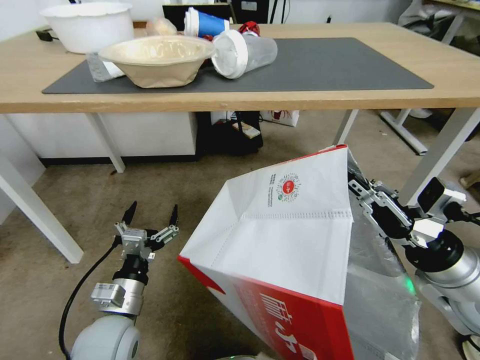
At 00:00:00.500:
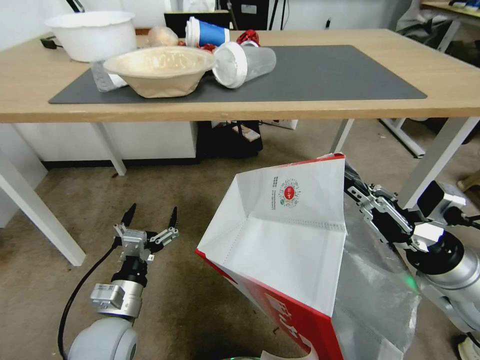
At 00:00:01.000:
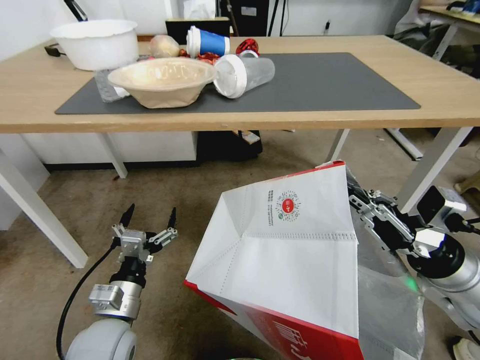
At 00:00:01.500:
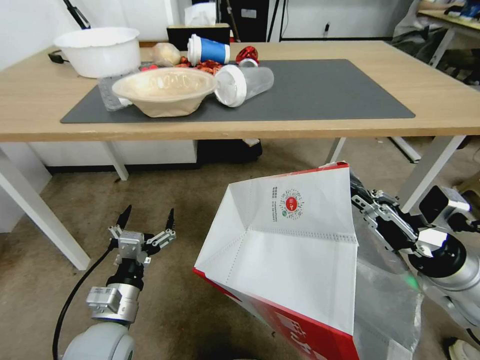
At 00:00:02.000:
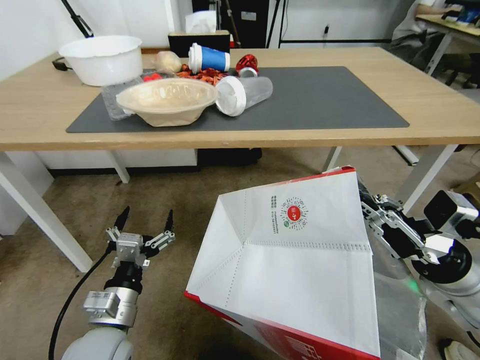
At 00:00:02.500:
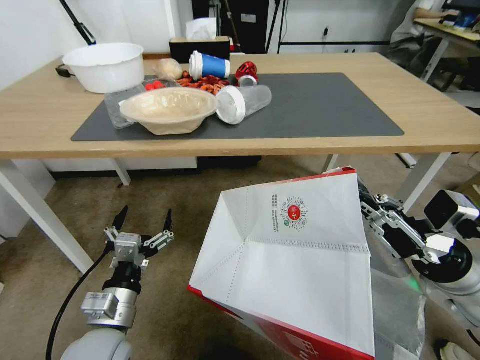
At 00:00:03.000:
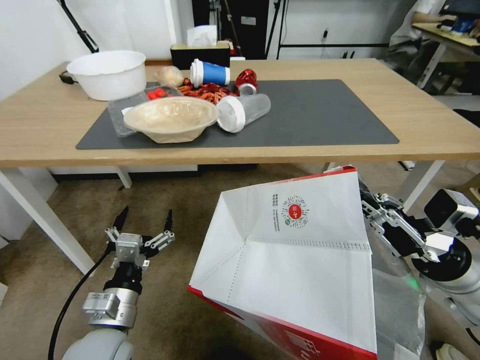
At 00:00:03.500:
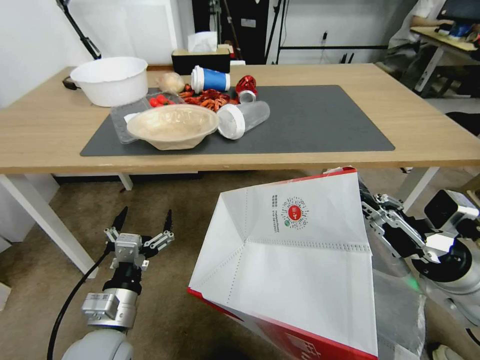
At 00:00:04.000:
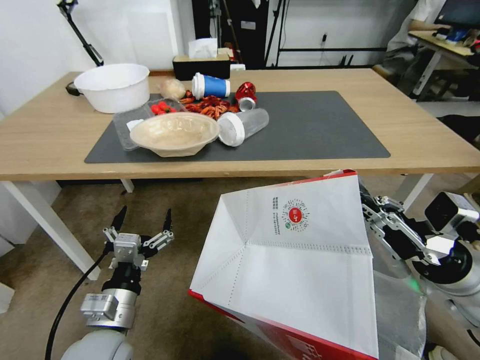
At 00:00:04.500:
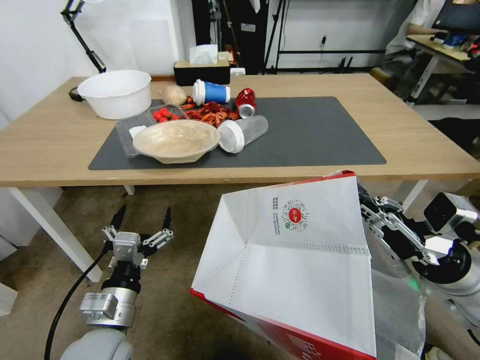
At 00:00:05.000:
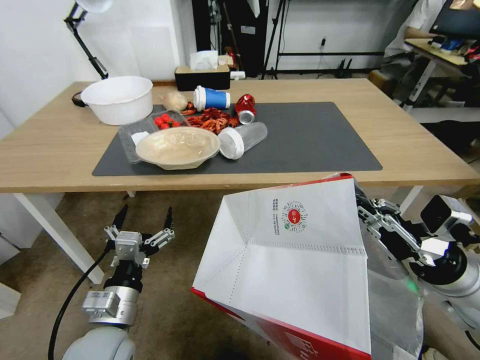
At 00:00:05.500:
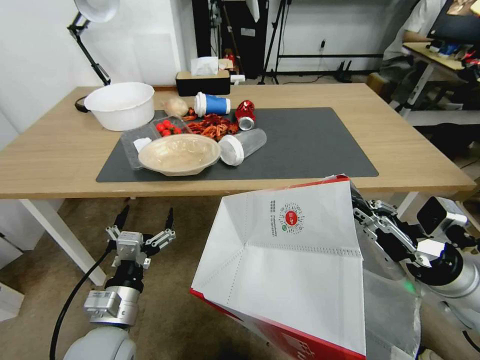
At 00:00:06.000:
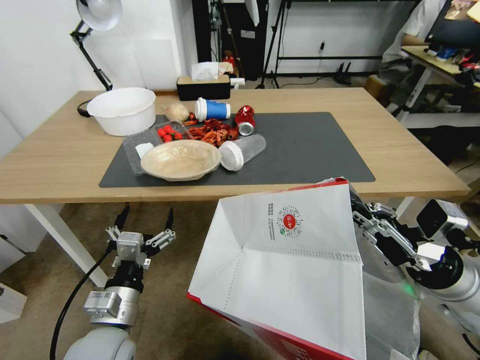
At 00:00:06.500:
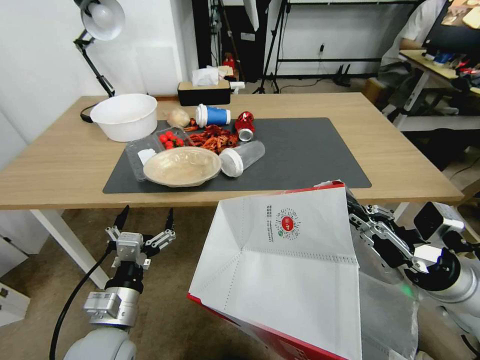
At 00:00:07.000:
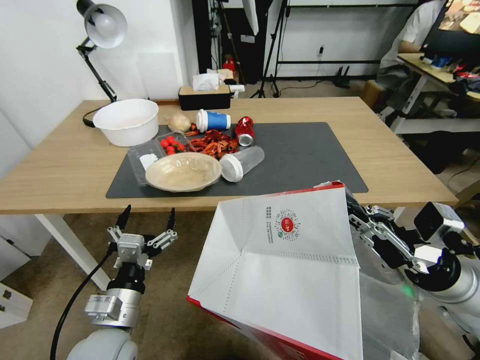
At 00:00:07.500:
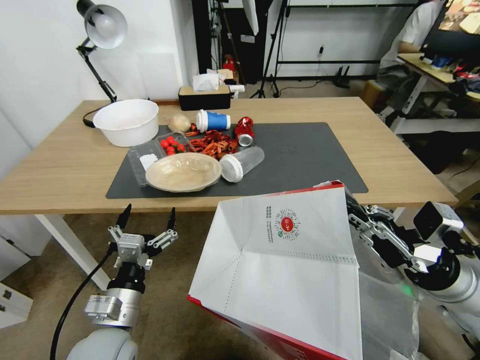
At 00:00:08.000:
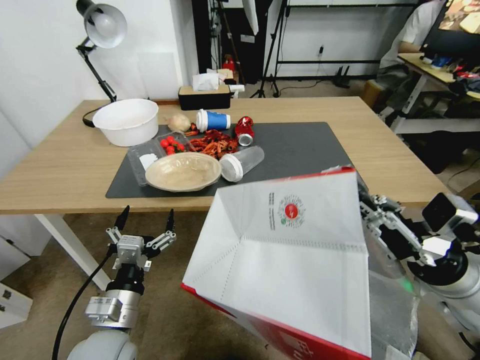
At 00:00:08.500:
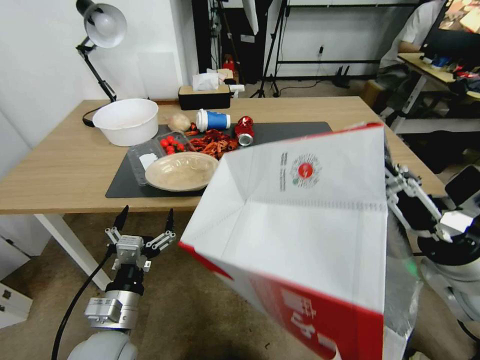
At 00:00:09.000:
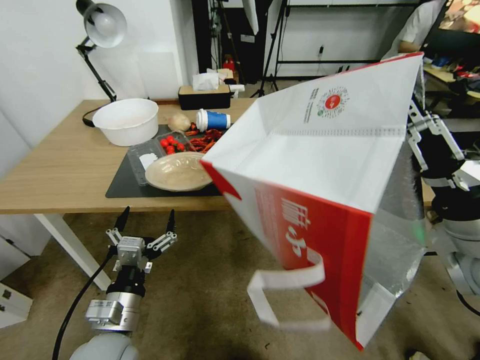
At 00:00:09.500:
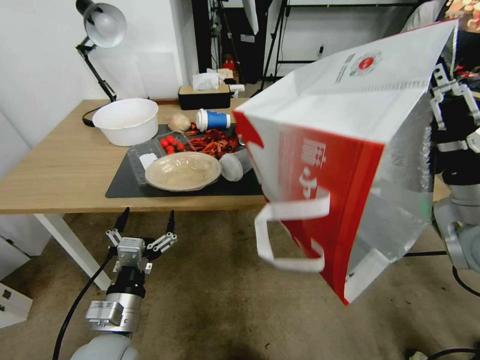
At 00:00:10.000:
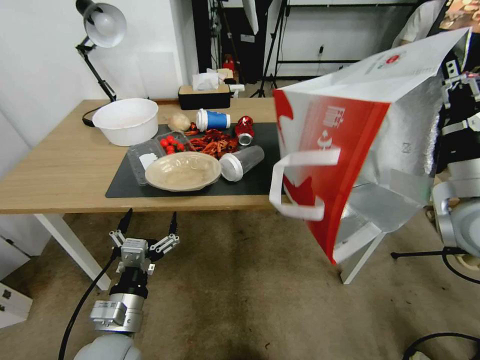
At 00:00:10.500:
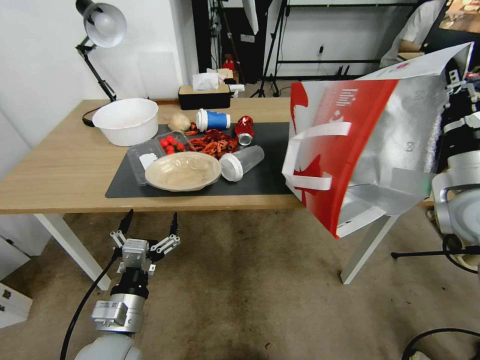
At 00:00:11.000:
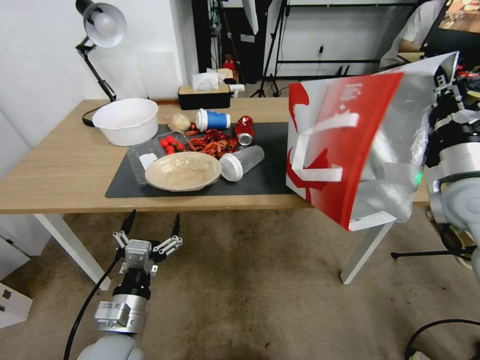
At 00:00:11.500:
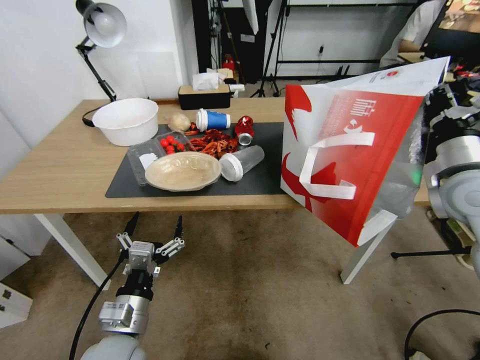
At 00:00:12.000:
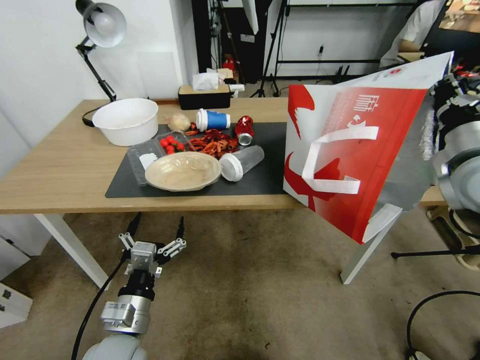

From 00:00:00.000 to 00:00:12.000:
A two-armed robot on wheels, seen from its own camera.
Task of the whole recording: Pick up the food delivery bag from the floor and place it on the table.
From 00:00:08.000 to 00:00:10.000: The right gripper heads upward and forward, covering roughly 10 cm.
From 00:00:10.000 to 00:00:12.000: The right gripper shifts about 5 cm forward.

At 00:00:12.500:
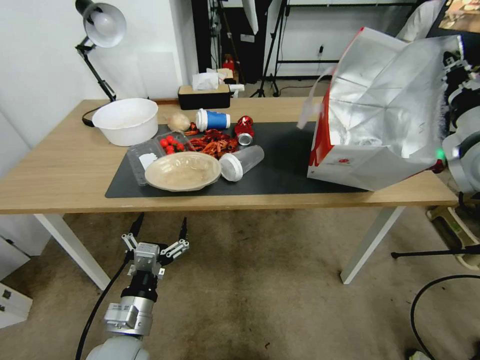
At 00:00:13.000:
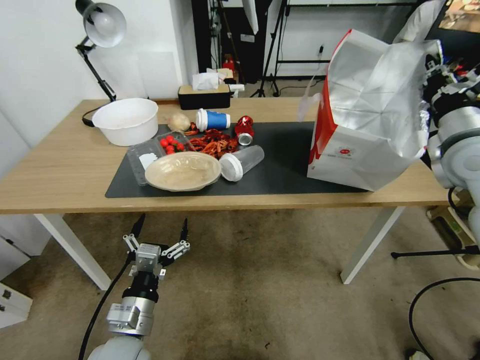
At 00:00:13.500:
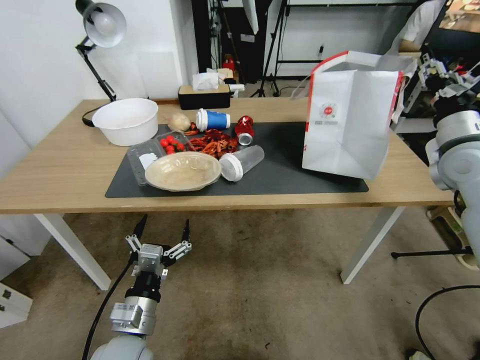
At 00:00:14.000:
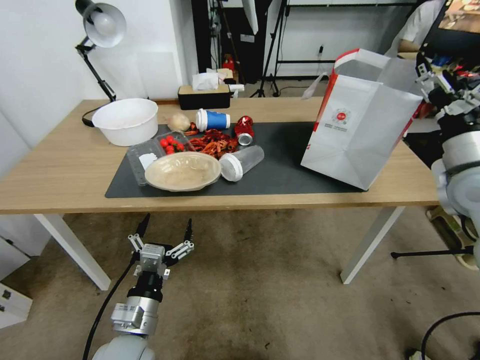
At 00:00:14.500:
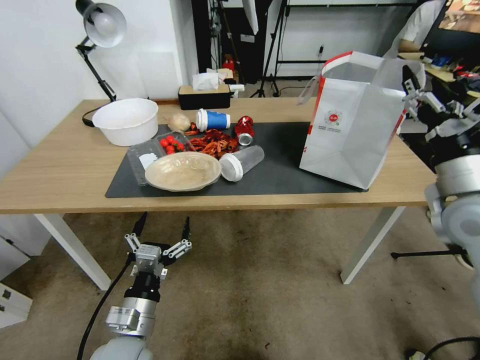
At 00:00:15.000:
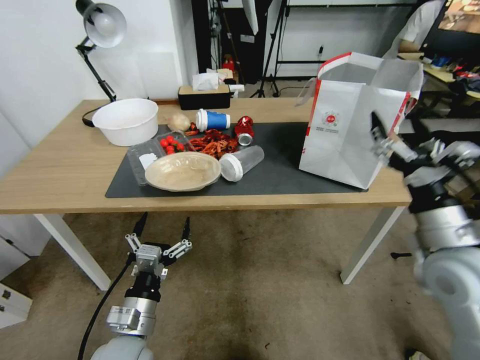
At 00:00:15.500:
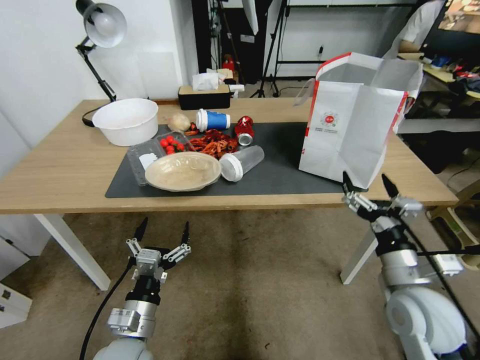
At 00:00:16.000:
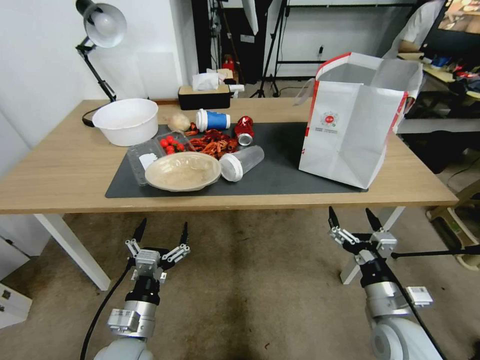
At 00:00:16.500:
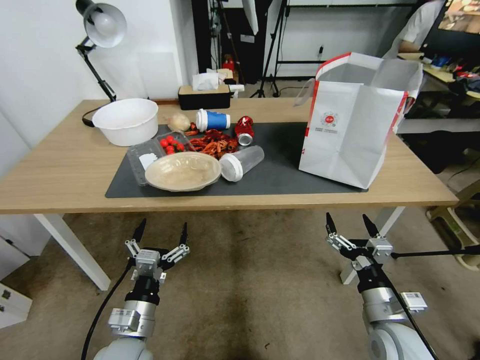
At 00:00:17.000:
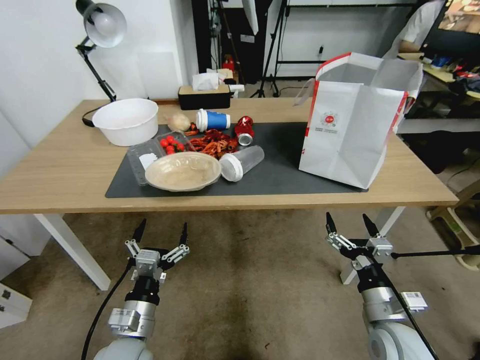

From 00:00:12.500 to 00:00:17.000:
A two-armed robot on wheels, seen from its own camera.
Task of the whole recording: Pick up the food delivery bag from the floor and place it on the table.
From 00:00:12.500 to 00:00:14.500: The right gripper goes roughly 5 cm downward, and opens up.
From 00:00:14.500 to 00:00:17.000: The right gripper heads downward and backward, covering some 25 cm.
